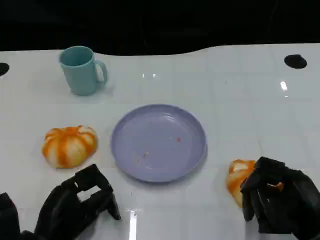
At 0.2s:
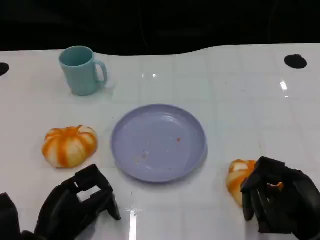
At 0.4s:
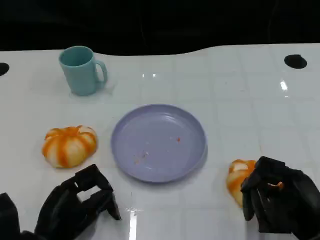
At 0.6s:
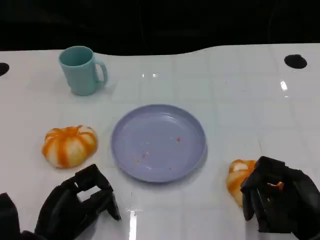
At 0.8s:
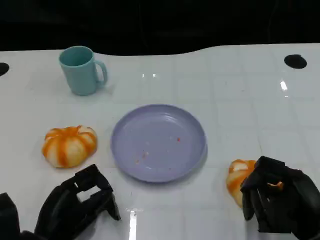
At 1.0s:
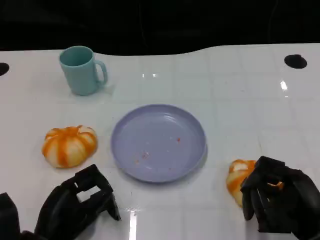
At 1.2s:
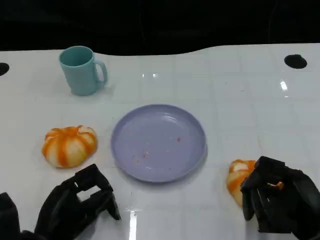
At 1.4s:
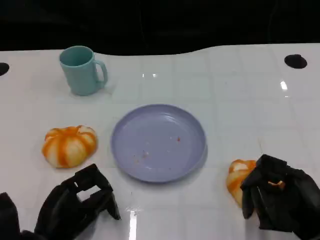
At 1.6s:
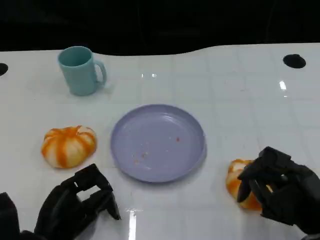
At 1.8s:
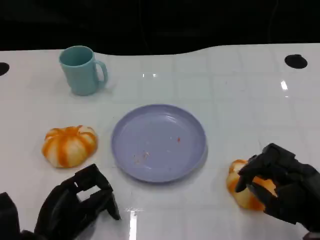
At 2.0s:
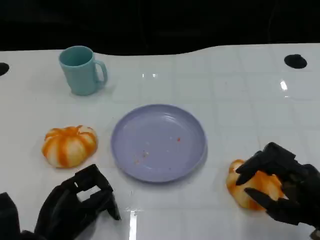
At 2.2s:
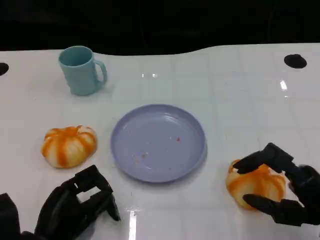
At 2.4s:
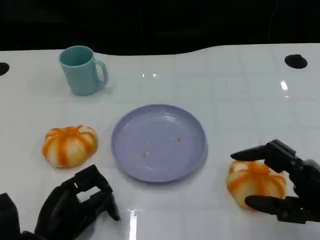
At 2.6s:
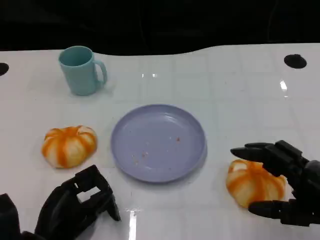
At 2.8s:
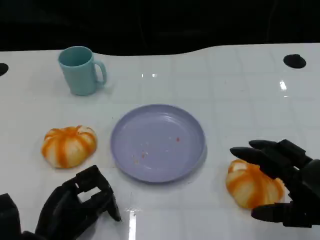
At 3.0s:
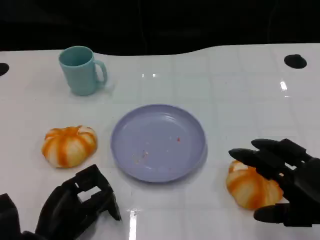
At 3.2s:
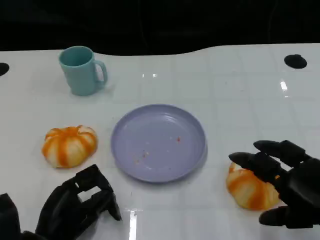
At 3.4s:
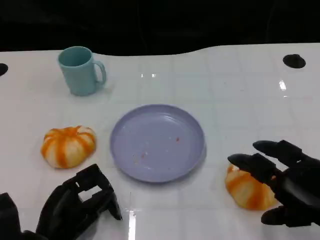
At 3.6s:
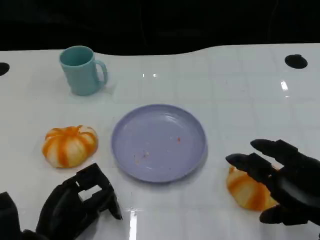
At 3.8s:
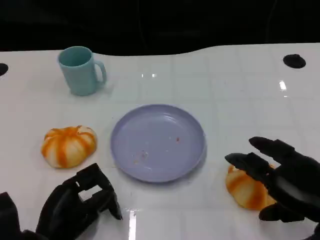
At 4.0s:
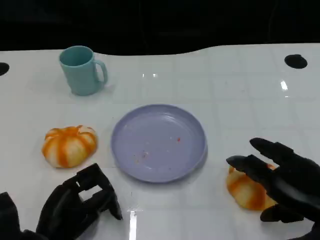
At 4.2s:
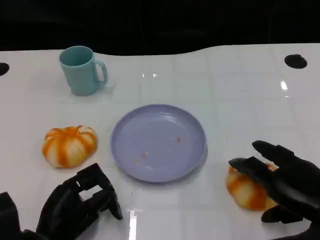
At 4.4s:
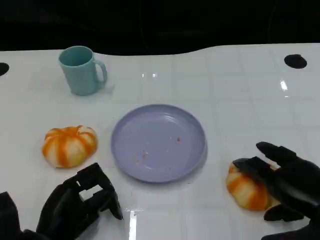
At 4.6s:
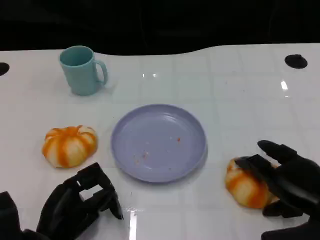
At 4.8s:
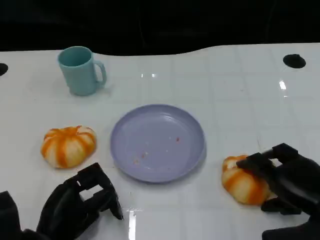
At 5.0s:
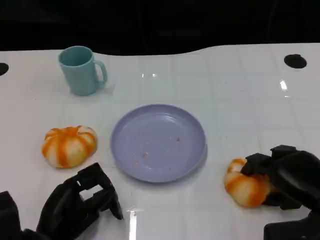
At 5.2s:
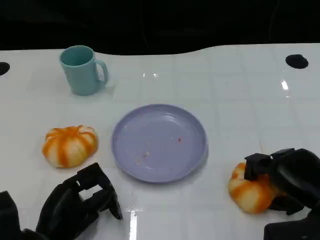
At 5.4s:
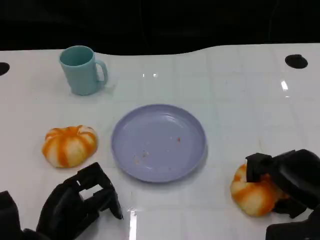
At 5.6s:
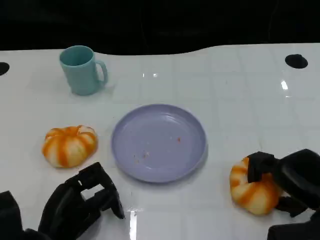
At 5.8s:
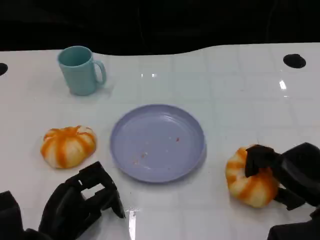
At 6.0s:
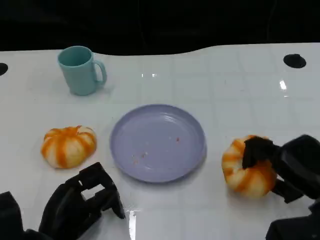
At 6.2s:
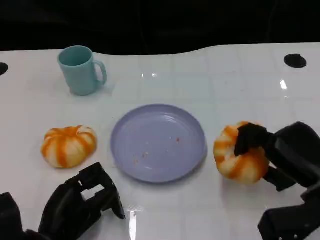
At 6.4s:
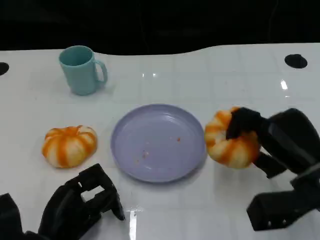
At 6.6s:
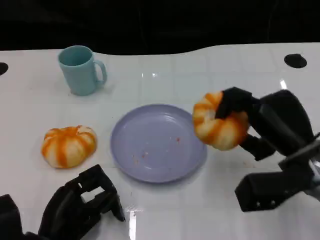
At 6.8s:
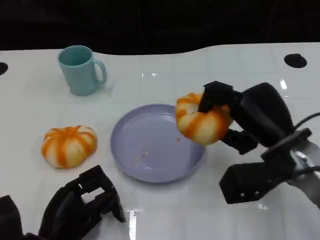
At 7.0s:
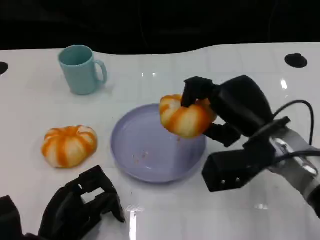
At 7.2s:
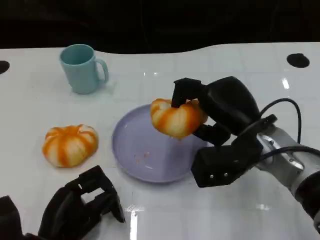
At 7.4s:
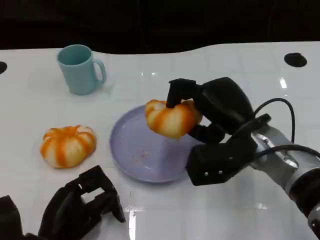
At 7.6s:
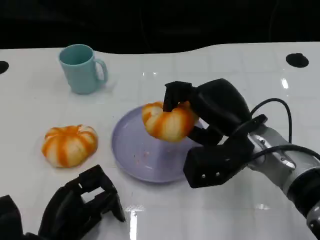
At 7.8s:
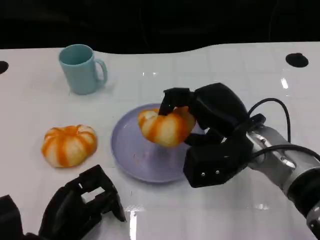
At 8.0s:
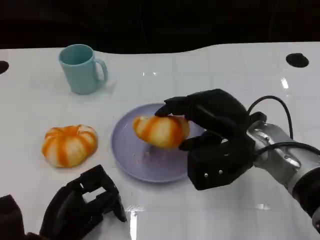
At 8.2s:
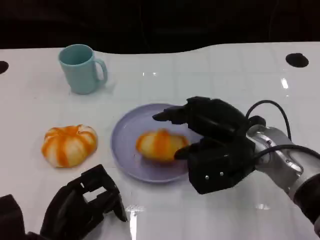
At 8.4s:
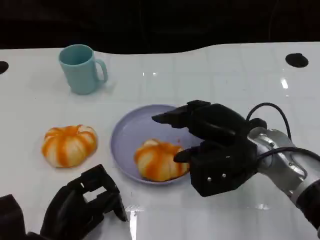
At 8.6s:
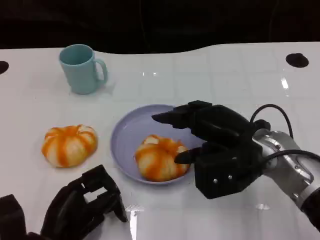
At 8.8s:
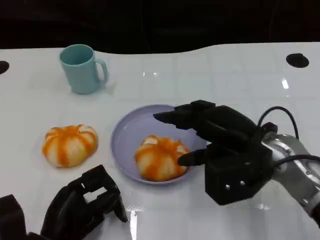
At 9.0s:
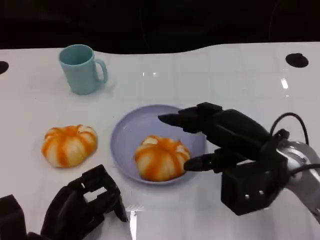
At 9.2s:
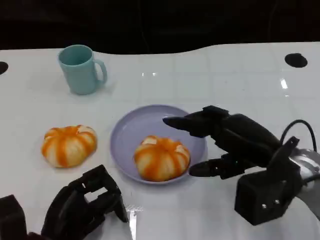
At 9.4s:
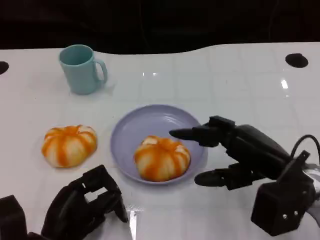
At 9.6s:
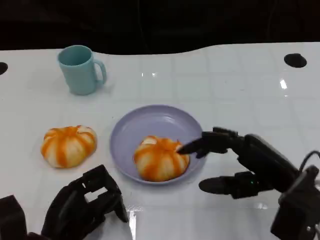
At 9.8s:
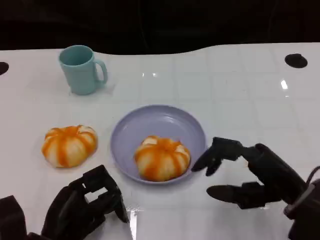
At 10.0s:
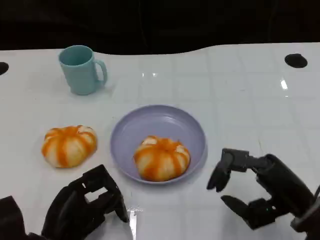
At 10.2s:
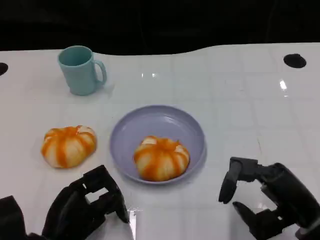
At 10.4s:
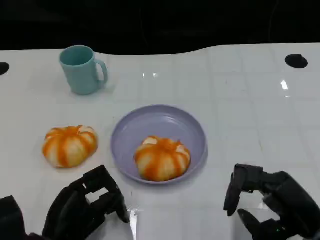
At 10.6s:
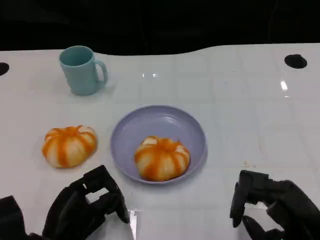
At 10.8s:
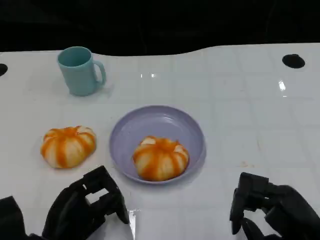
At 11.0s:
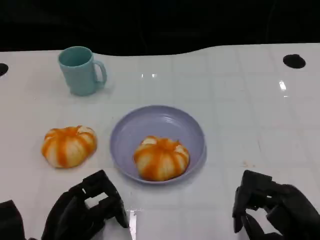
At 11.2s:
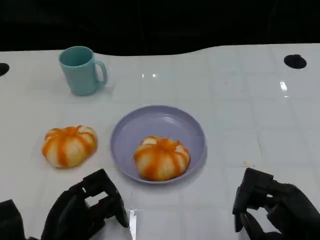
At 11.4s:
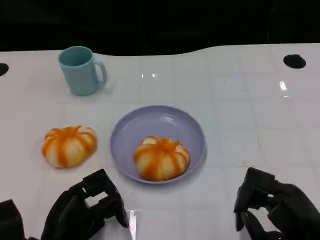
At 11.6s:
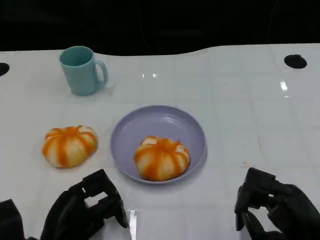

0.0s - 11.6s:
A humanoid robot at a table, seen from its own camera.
Task of the whole recording: Grasp the bread from the table and place it into the plate.
0.0s - 1.4s: Both hands stay put.
1.4s - 2.8s: The right hand goes approximately 5 cm upward.
2.8s - 4.4s: The right hand changes place by about 5 cm.
5.8s - 7.2s: The right hand goes roughly 15 cm to the left, forward and upward.
8.8s - 10.2s: The right hand travels backward, to the right and downward by roughly 15 cm.
10.2s - 11.6s: The hands make only small movements.

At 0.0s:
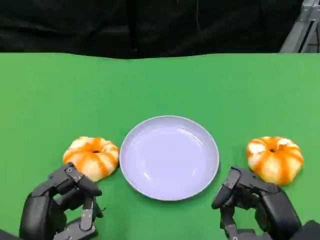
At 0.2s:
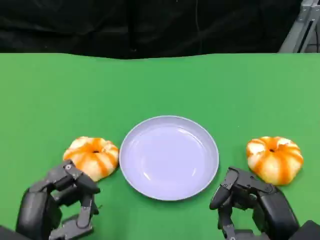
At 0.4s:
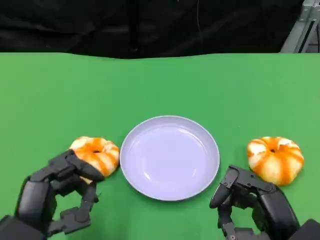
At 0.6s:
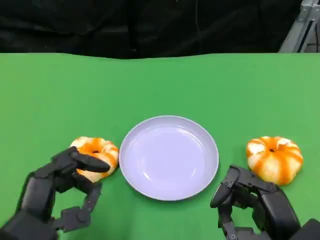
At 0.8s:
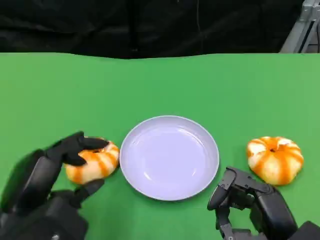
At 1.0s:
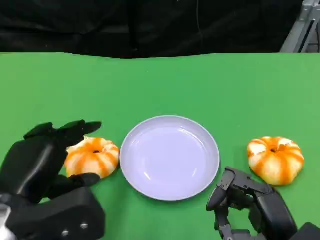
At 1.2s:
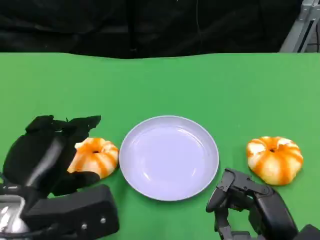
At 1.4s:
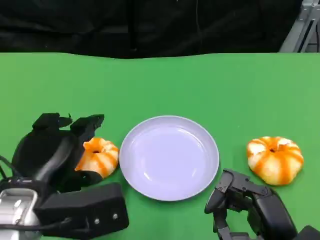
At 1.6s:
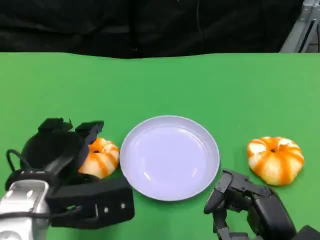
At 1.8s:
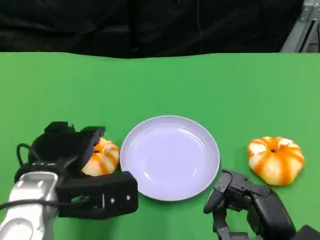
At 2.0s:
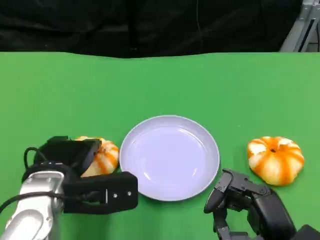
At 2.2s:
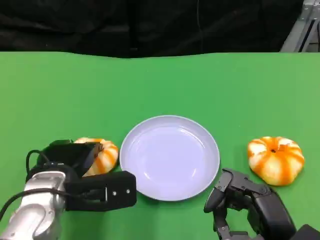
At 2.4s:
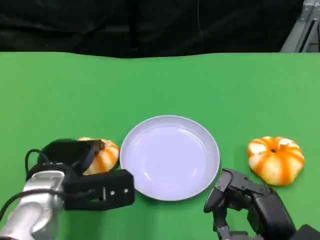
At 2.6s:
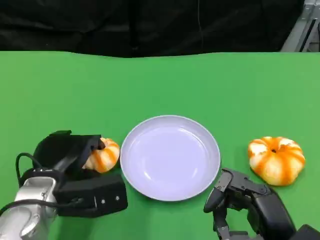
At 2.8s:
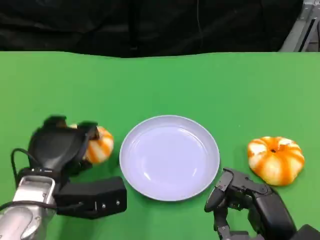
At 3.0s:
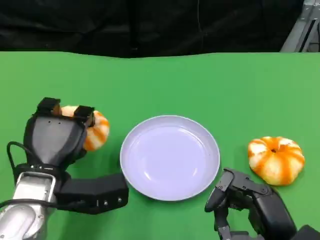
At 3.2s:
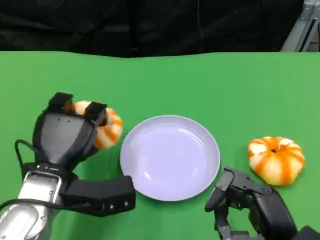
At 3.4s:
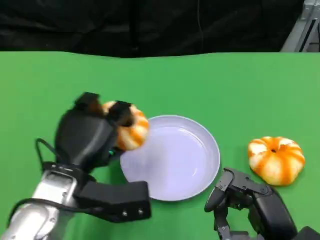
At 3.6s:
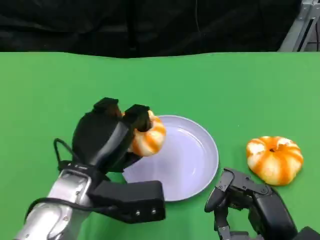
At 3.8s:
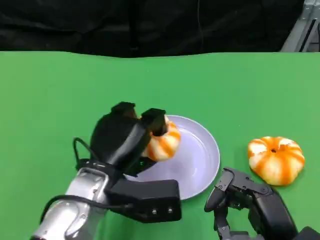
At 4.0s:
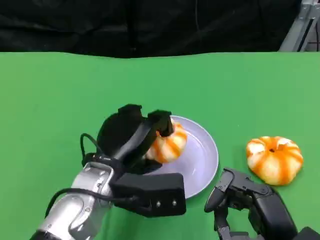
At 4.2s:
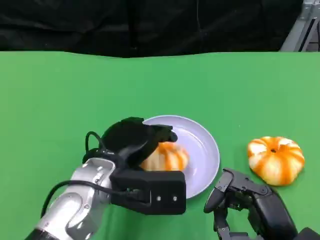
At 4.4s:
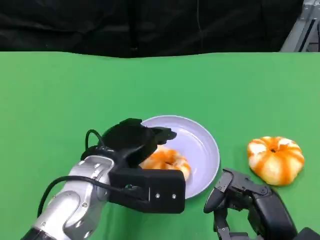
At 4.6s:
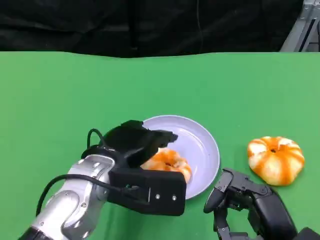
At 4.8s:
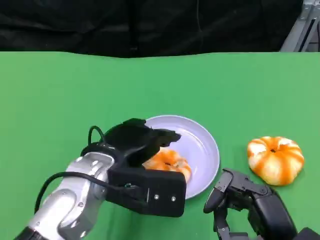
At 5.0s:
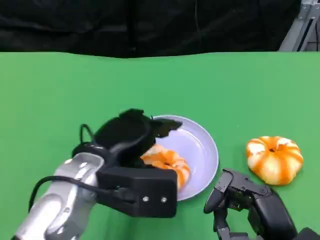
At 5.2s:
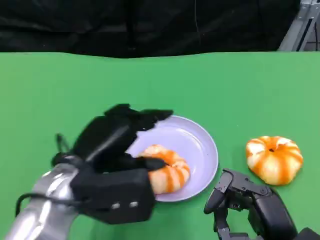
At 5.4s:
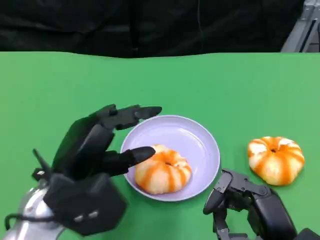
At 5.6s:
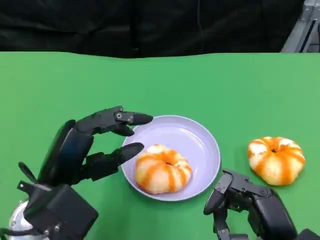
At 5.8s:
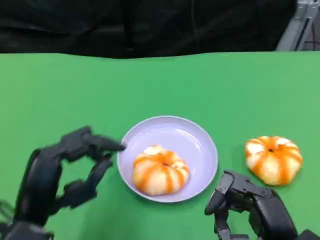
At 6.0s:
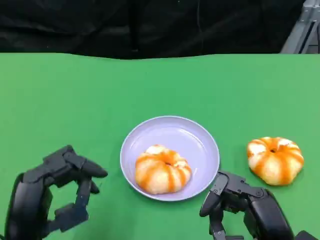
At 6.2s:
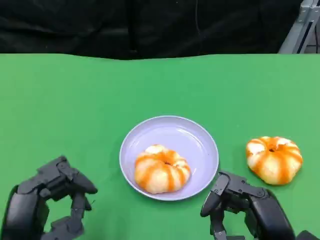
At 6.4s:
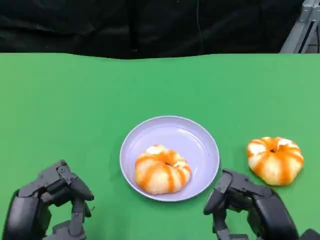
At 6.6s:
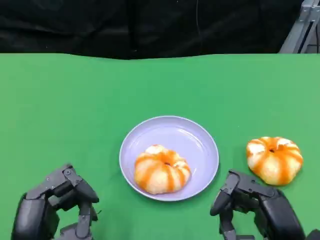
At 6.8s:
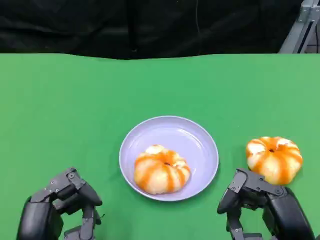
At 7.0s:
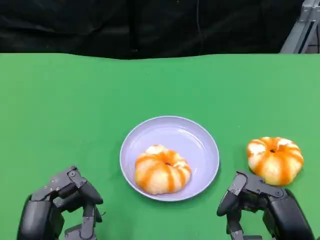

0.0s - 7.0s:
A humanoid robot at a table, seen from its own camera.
Task of the whole recording: Grasp the bread from the table and place it into the plate.
0.0s - 1.4s: The left hand moves upward and forward, roughly 10 cm.
1.4s - 2.8s: The left hand travels downward and forward by approximately 10 cm.
2.8s - 4.2s: The left hand shifts about 10 cm to the right.
4.2s - 5.6s: The left hand goes roughly 10 cm to the left and backward.
5.6s - 7.0s: The left hand shifts roughly 5 cm backward.

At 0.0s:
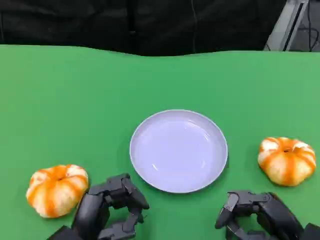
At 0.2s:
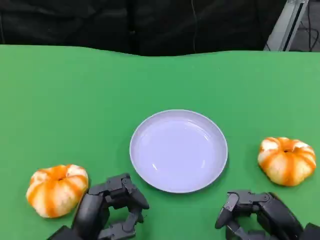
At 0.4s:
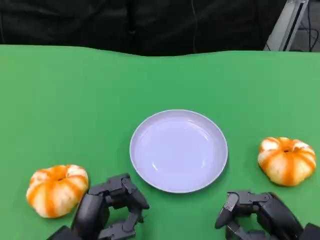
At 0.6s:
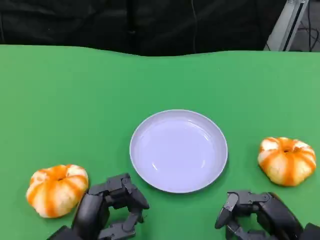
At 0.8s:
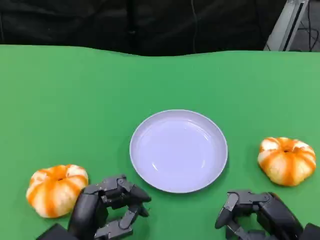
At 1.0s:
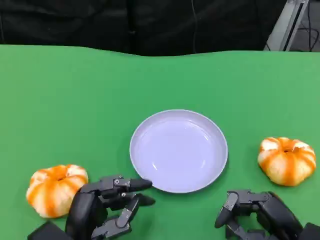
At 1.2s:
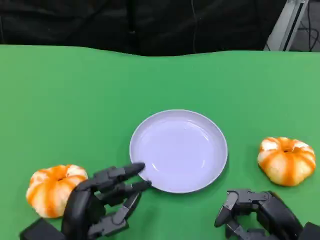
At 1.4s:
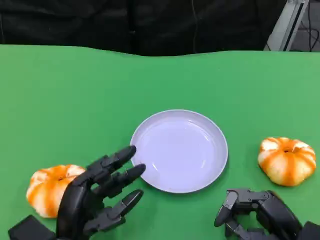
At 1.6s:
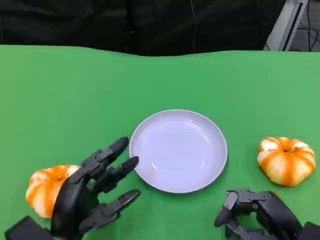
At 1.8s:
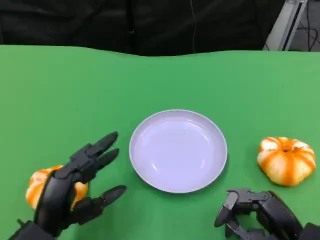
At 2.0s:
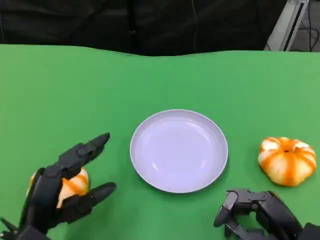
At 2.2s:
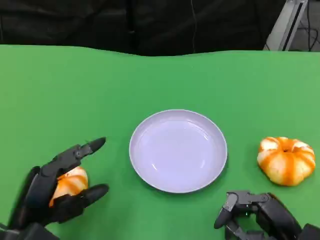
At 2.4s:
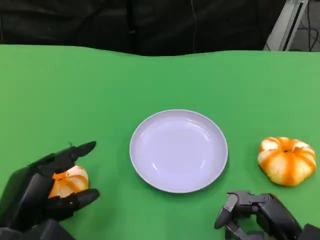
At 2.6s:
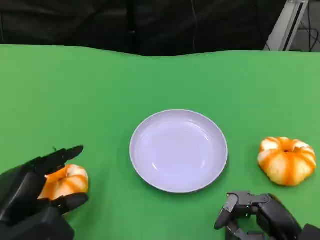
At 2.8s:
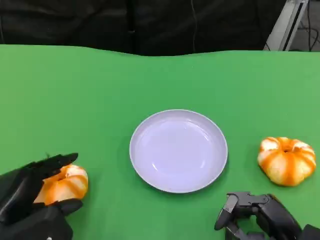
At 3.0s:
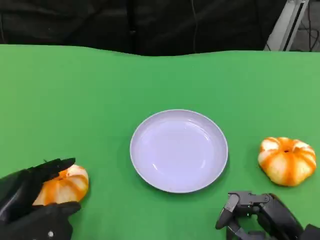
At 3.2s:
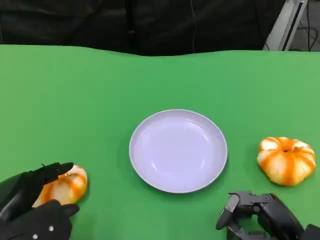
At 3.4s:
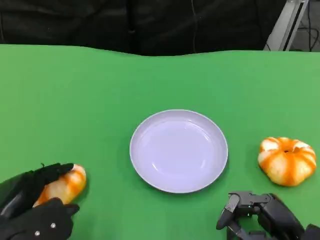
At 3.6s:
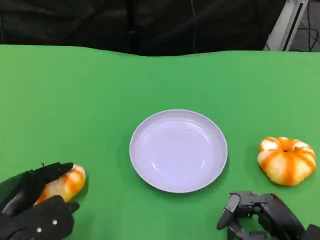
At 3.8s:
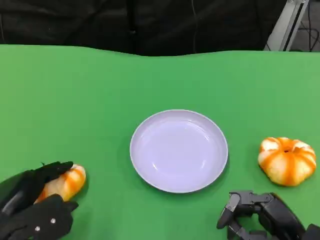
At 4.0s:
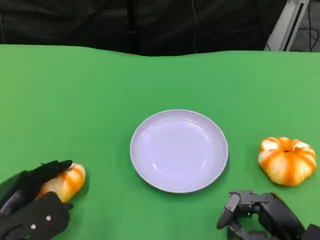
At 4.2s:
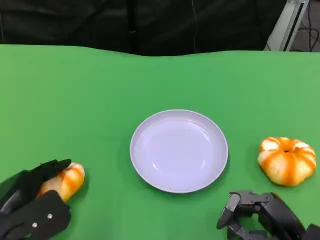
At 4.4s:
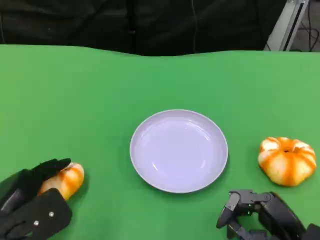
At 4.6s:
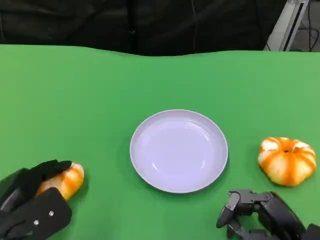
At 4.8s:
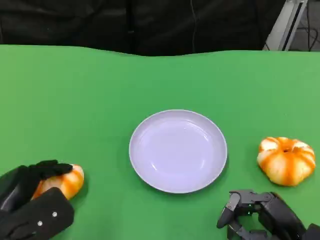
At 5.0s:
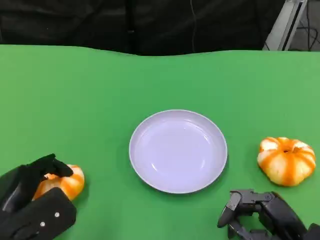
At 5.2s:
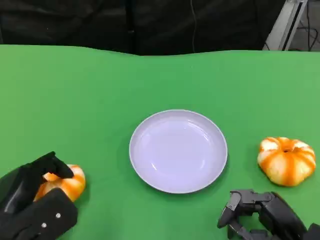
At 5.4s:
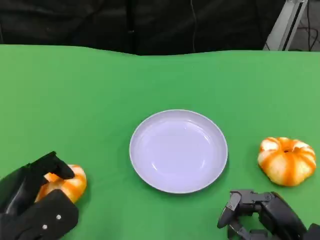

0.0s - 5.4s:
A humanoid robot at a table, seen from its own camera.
Task of the whole recording: Grasp the bread from the table and place it into the plate.
0.0s - 1.4s: The hands make only small movements.
1.4s - 2.8s: The left hand goes approximately 10 cm to the left and upward.
2.8s - 5.4s: There are only small adjustments of the hands.
